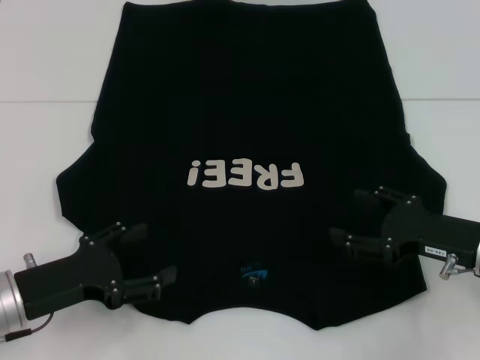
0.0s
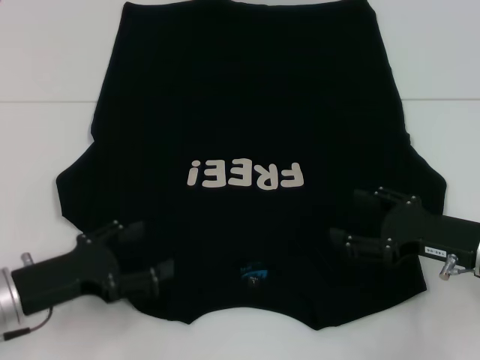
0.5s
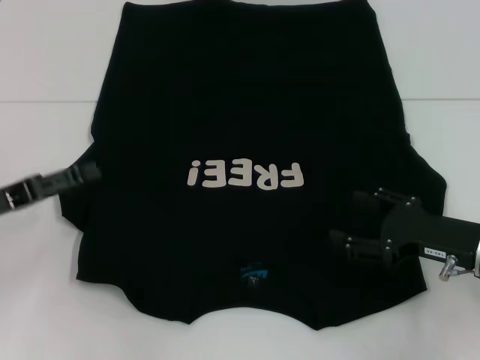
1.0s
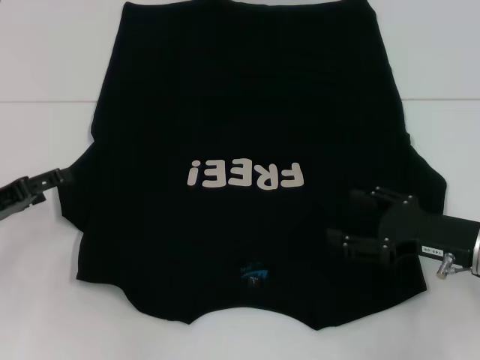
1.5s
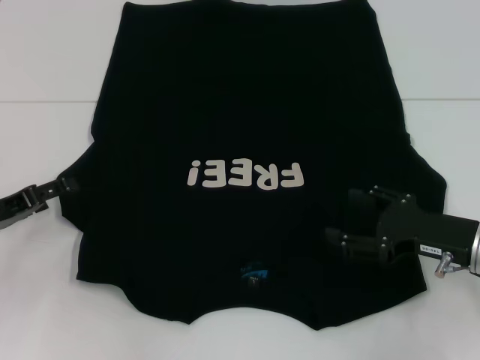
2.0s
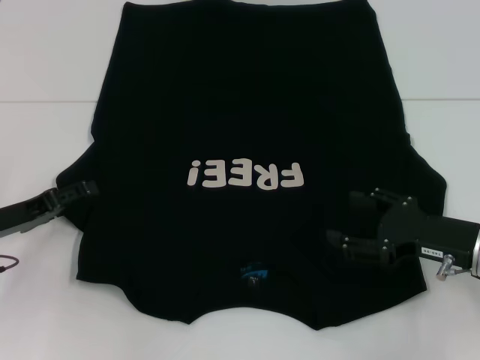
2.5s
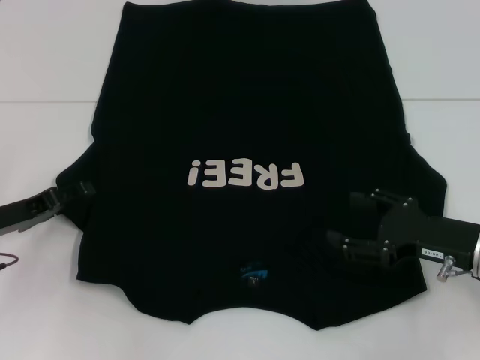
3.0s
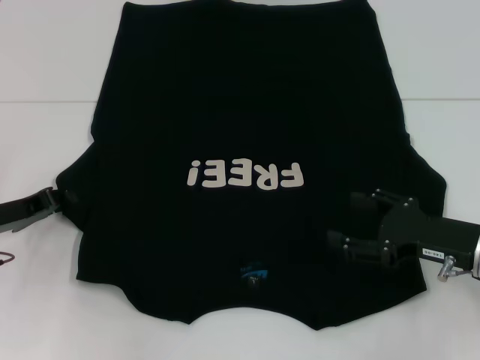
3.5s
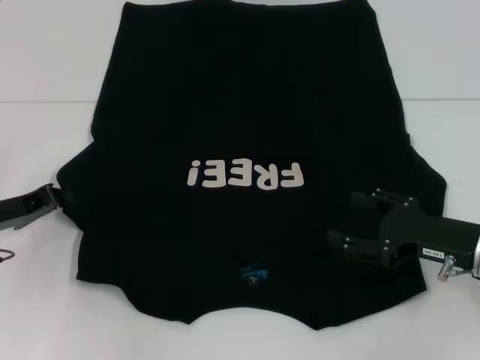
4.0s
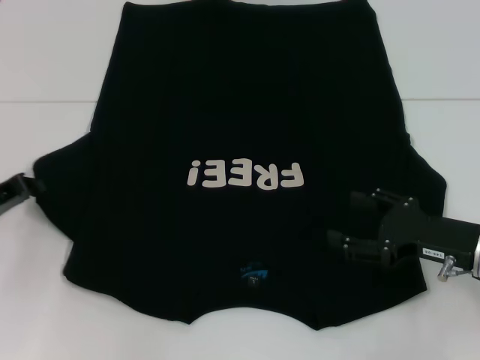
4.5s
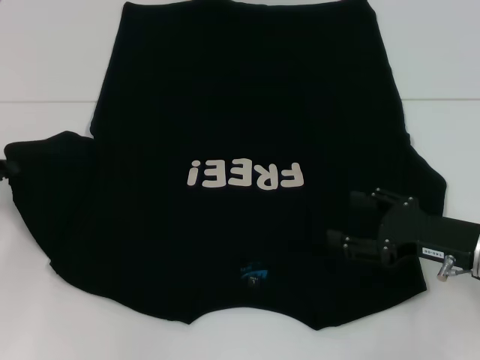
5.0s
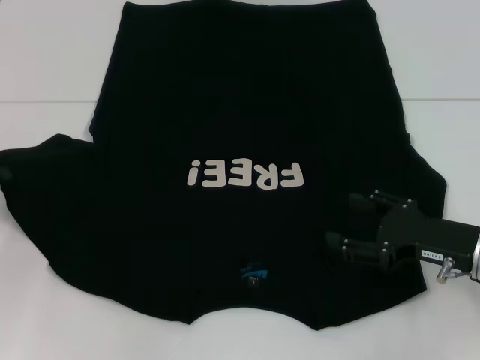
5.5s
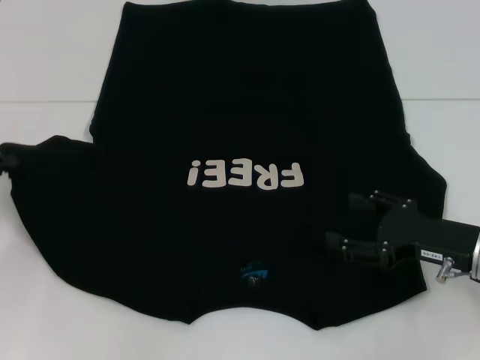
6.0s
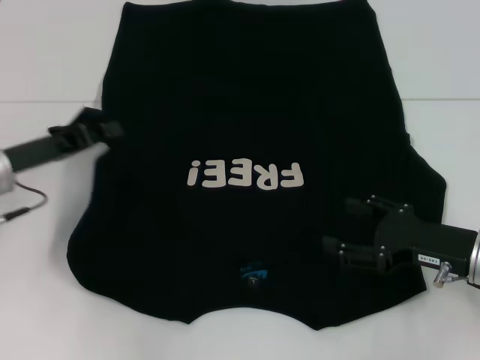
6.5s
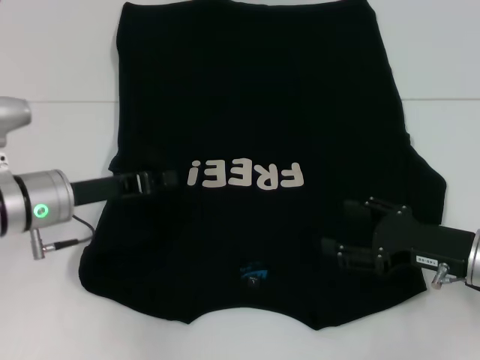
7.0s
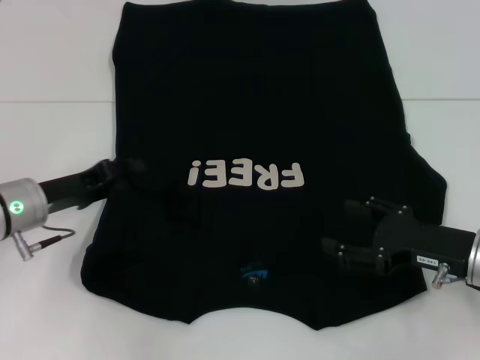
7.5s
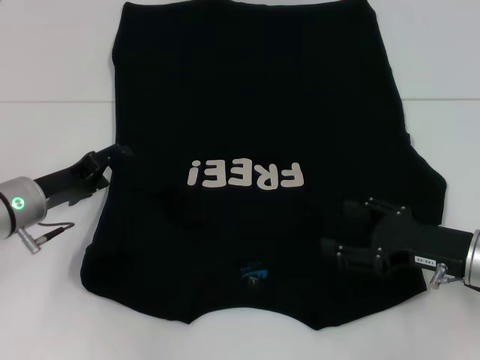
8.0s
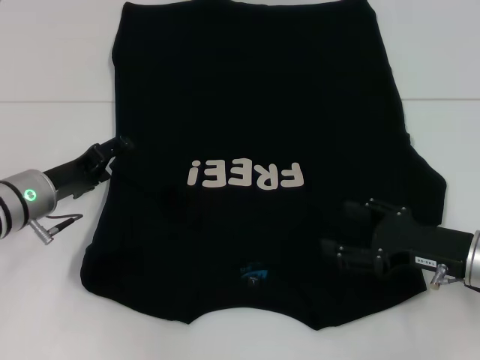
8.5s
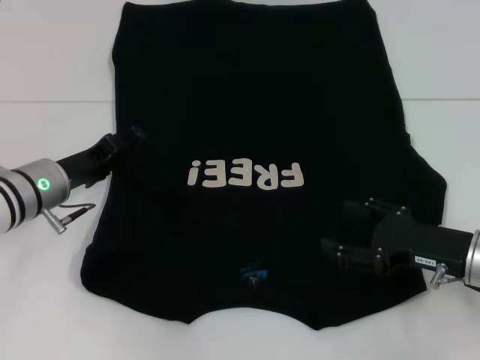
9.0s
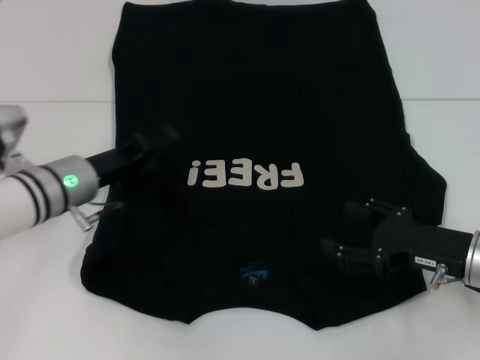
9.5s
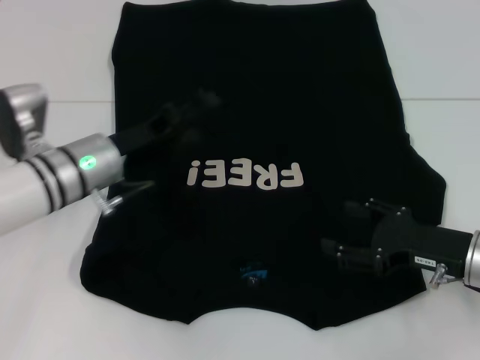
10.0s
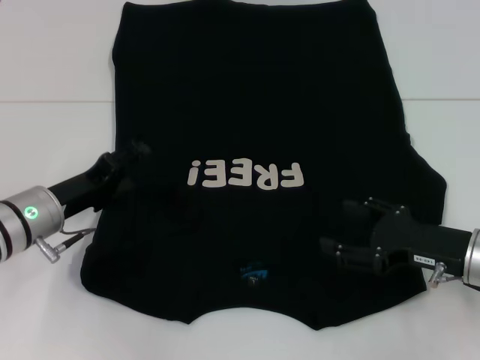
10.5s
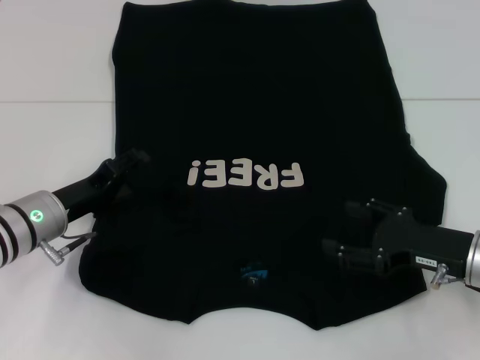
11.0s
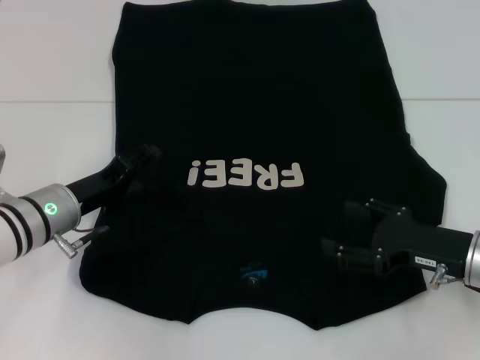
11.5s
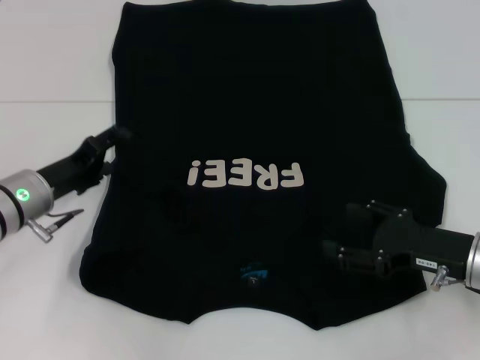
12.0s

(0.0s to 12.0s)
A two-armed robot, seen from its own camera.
Step, 0.0s - 7.0s: Fold the bottom left sleeve with your left hand.
0.0s - 2.0s: The left gripper shifts about 10 cm to the left and forward.
2.0s - 4.0s: The left gripper closes its fingers.
4.0s - 6.0s: The left gripper shifts by about 5 cm.
6.0s - 8.0s: The left gripper goes about 10 cm to the right, and opens.
8.0s - 10.0s: The left gripper heads to the right, covering approximately 10 cm.
10.0s - 12.0s: The left gripper is displaced to the left by roughly 5 cm.

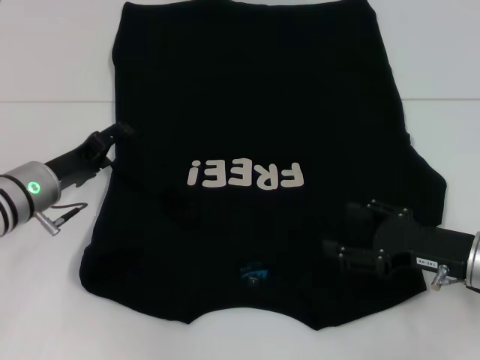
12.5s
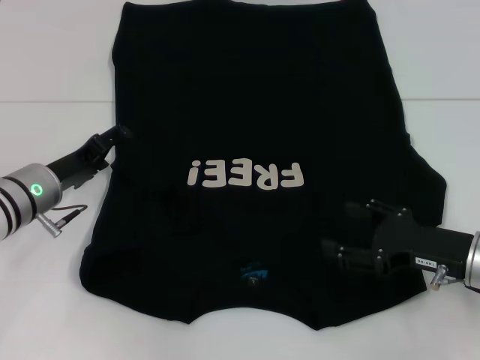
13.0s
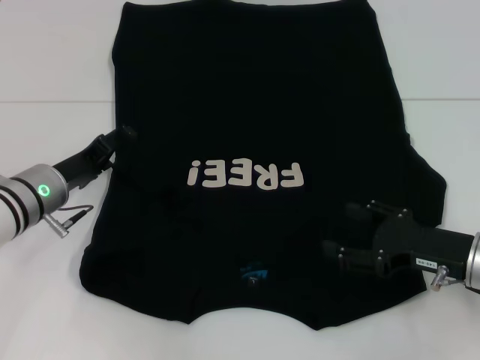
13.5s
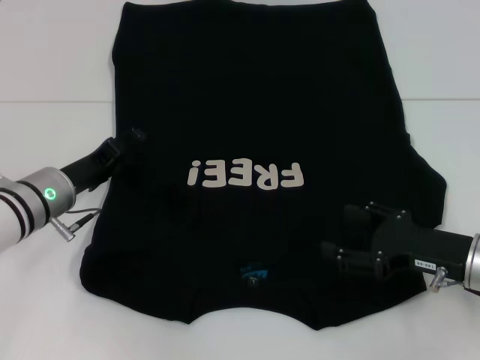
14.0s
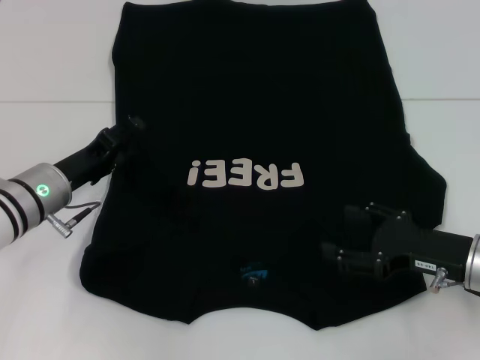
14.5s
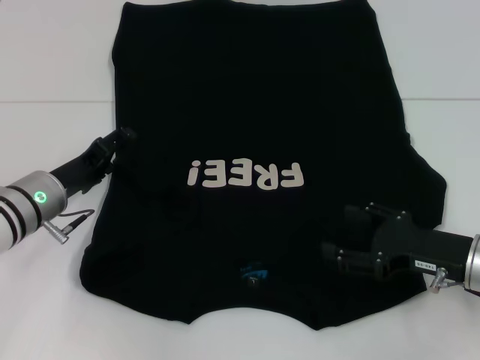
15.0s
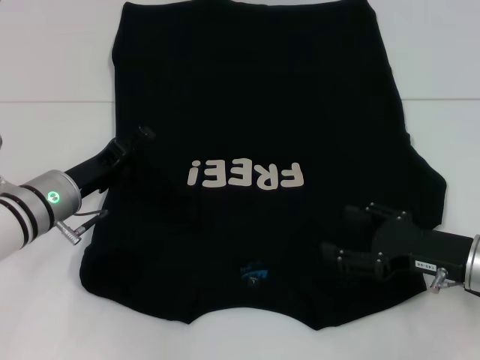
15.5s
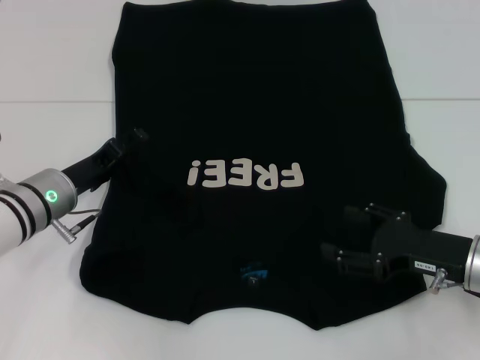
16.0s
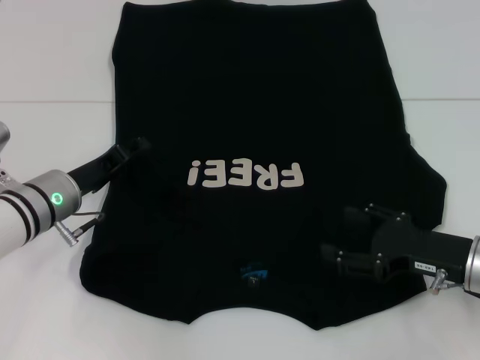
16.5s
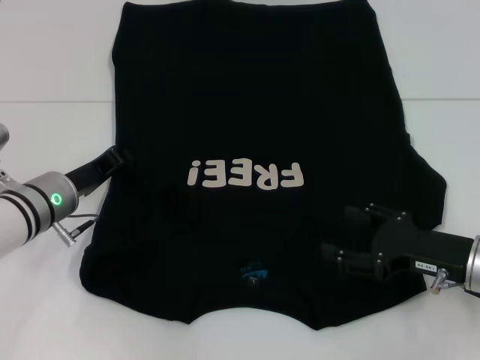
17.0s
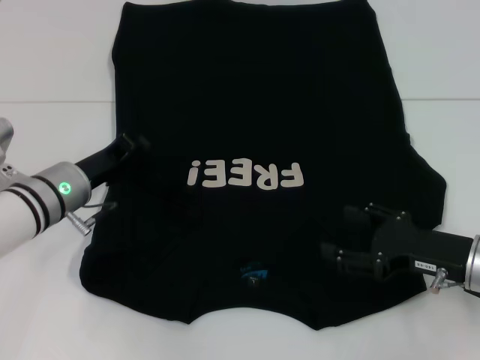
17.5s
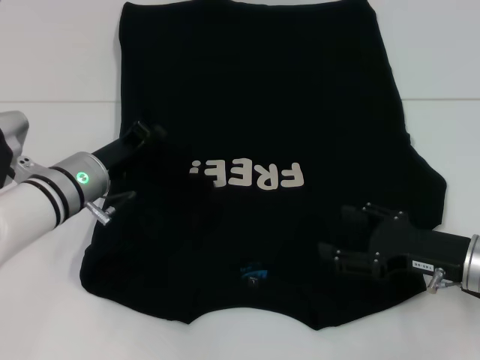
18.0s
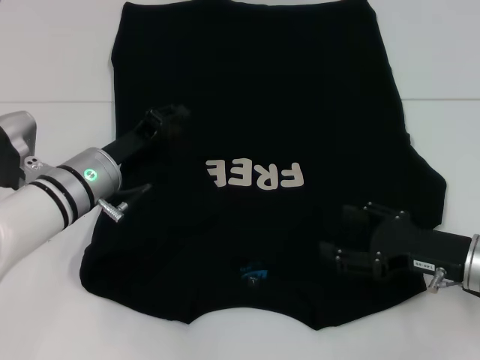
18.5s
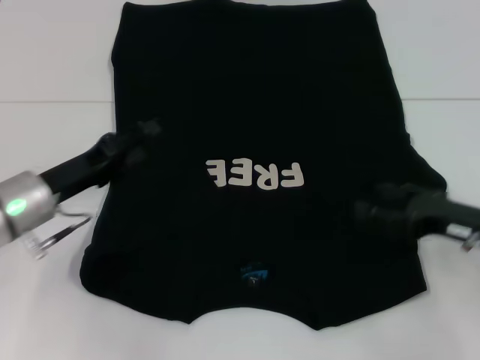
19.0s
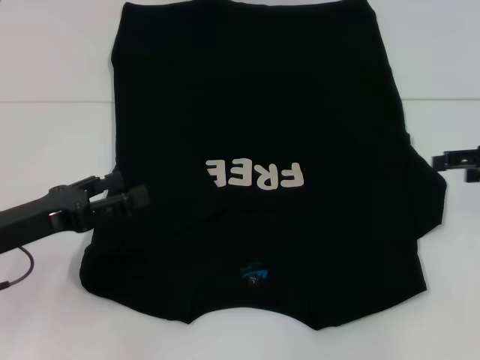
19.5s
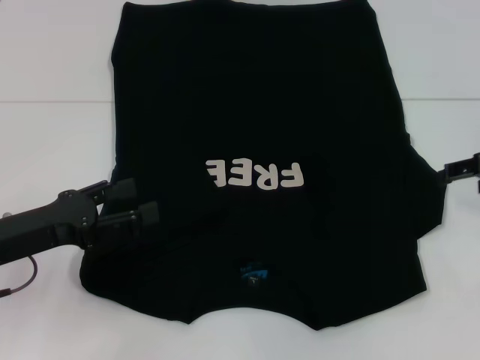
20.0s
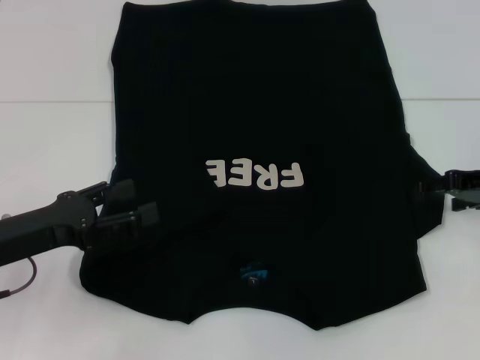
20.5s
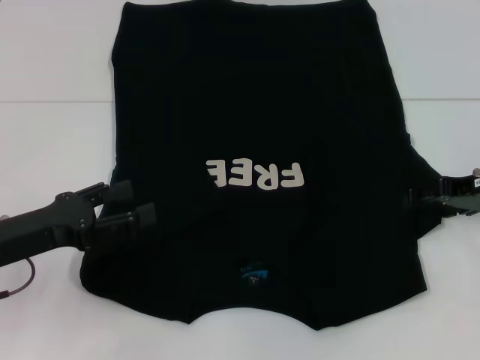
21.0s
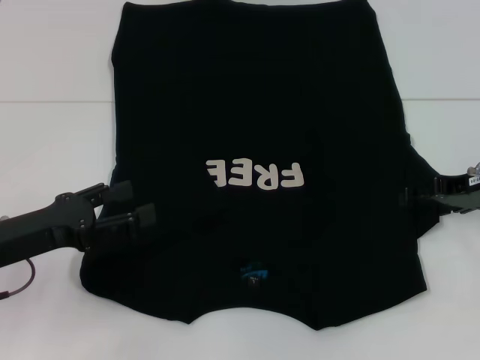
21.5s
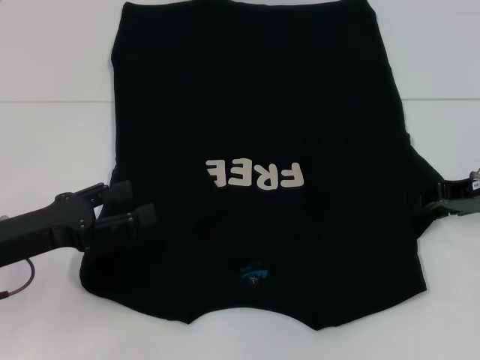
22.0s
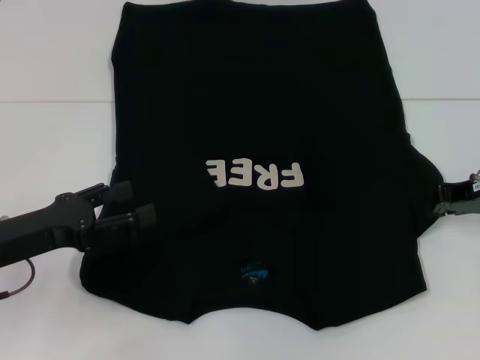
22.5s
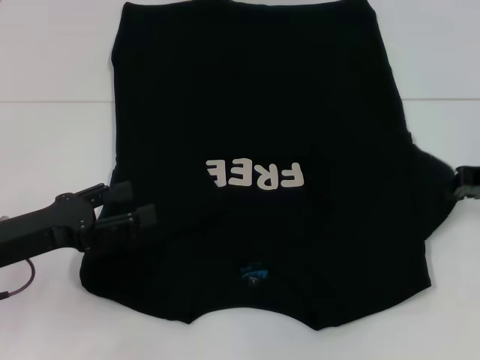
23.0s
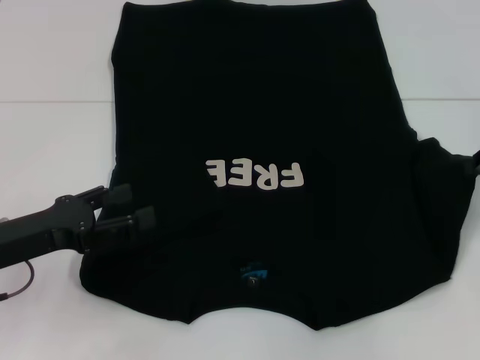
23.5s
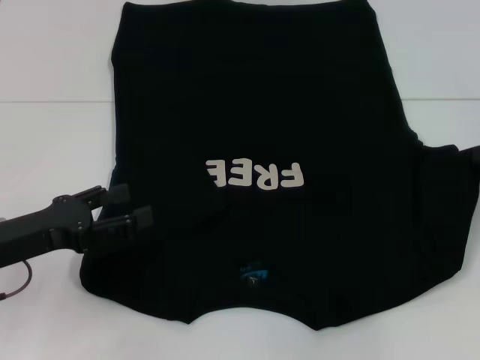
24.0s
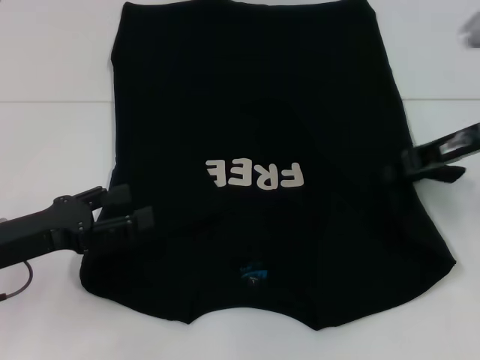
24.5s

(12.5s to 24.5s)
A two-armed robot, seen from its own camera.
12.5s - 16.5s: There are only small adjustments of the grippers.
16.5s - 18.5s: The left gripper closes.
18.5s - 20.5s: The right gripper shifts about 15 cm forward, upward and to the right, while the left gripper is displaced backward and to the left by about 15 cm, and opens its fingers.
20.5s - 22.5s: The right gripper closes.
22.5s - 24.5s: The right gripper travels upward by some 5 cm.

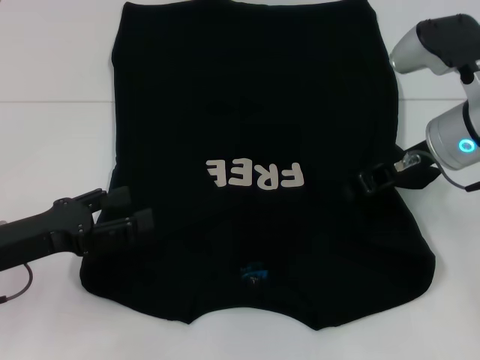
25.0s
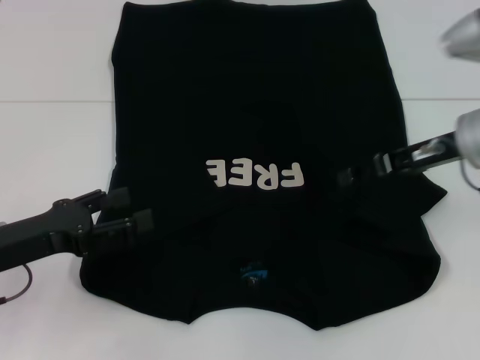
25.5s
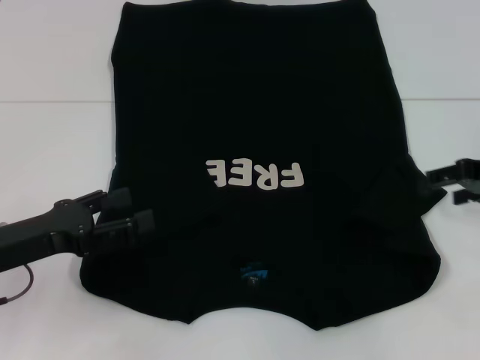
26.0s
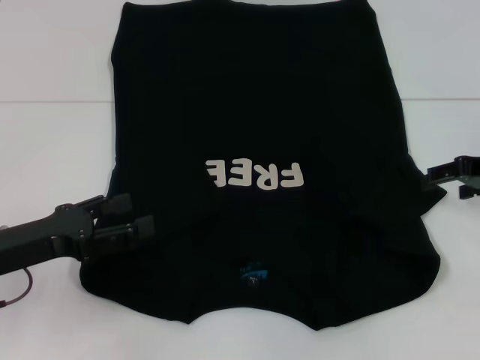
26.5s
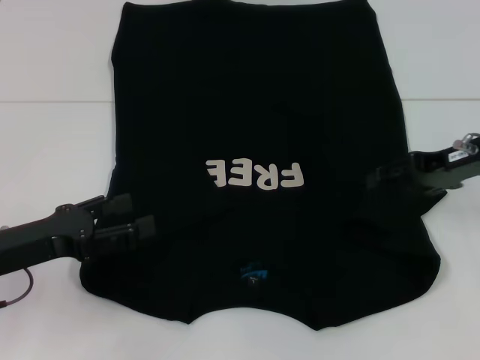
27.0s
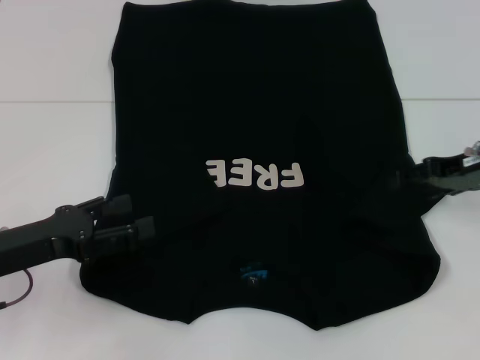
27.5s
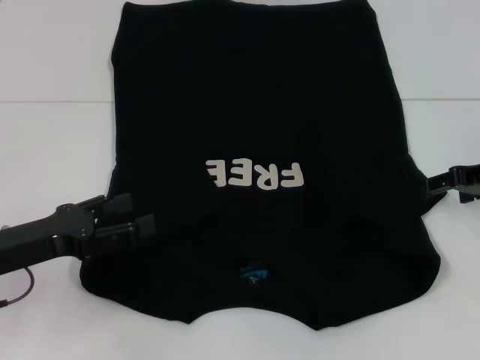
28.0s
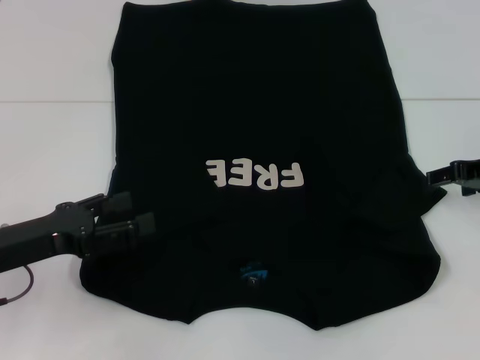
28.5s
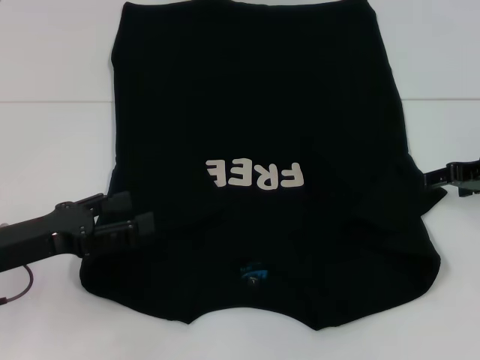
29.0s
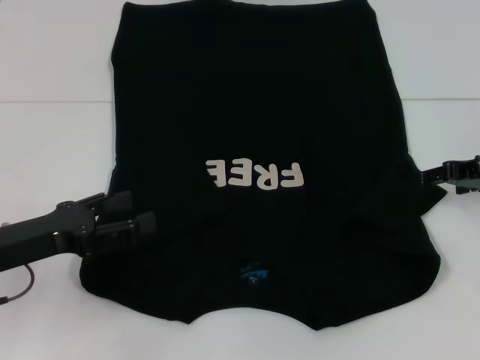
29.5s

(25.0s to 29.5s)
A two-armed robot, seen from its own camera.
25.0s - 27.0s: The right gripper goes roughly 5 cm to the right, and opens up.
27.0s - 29.5s: The grippers move only a little.
